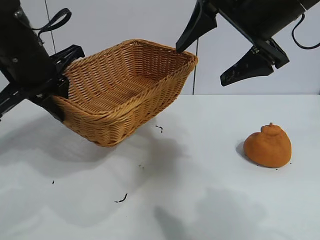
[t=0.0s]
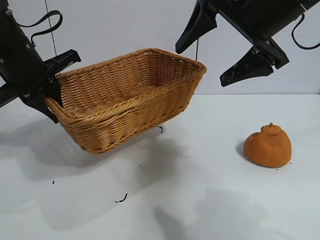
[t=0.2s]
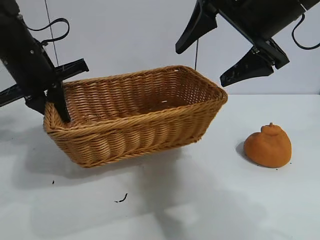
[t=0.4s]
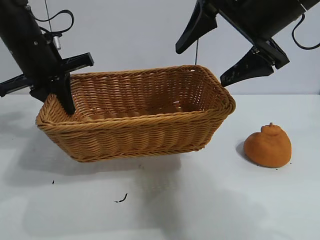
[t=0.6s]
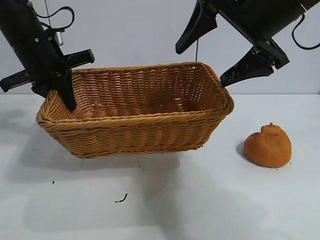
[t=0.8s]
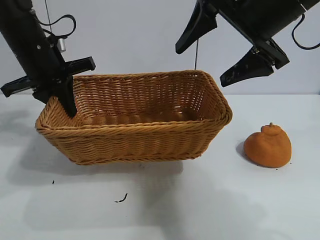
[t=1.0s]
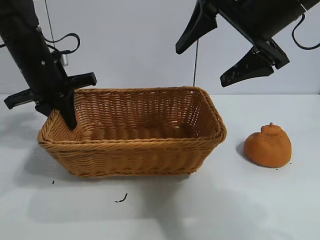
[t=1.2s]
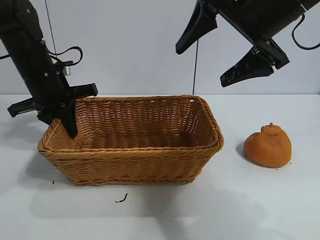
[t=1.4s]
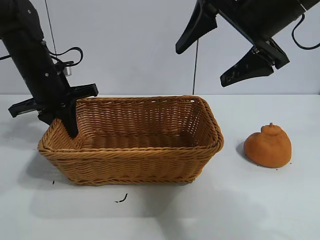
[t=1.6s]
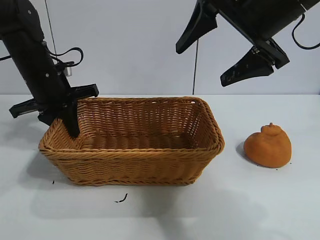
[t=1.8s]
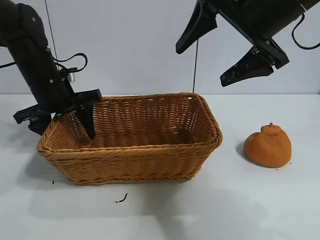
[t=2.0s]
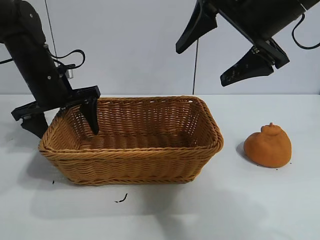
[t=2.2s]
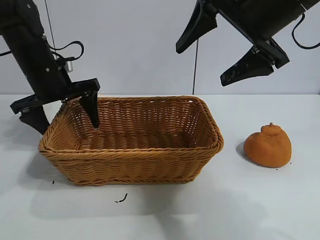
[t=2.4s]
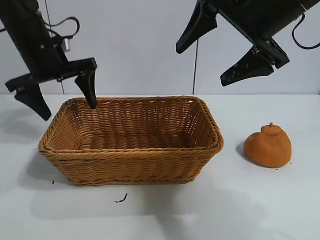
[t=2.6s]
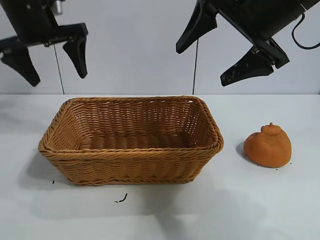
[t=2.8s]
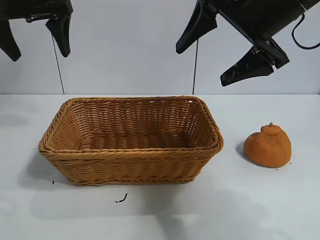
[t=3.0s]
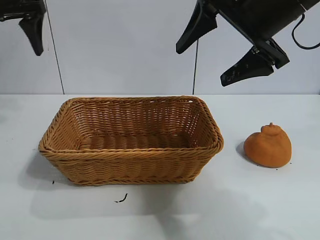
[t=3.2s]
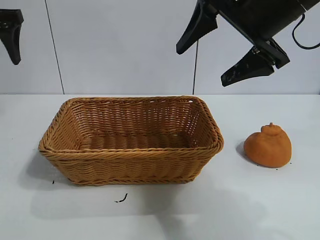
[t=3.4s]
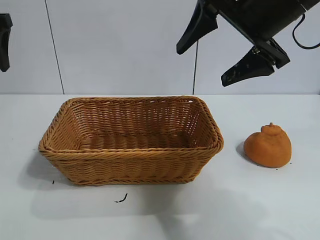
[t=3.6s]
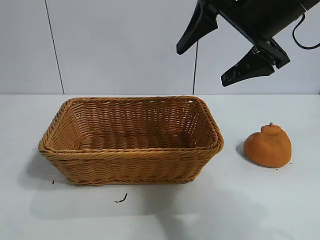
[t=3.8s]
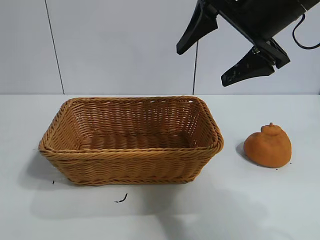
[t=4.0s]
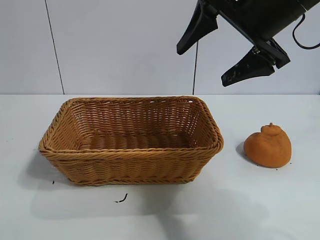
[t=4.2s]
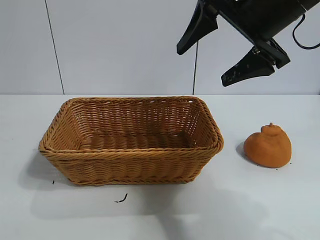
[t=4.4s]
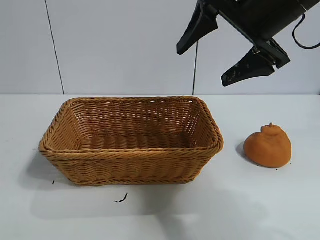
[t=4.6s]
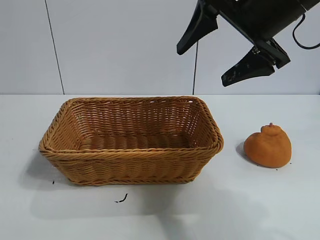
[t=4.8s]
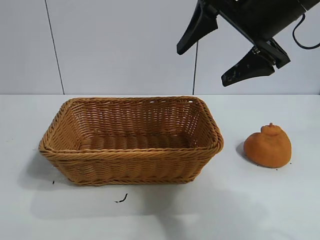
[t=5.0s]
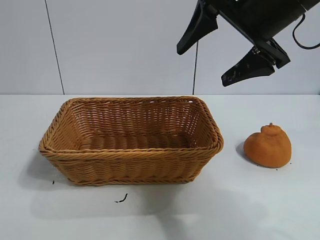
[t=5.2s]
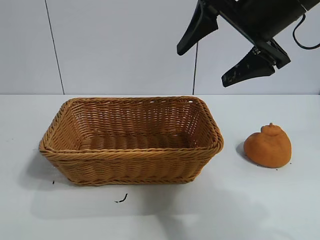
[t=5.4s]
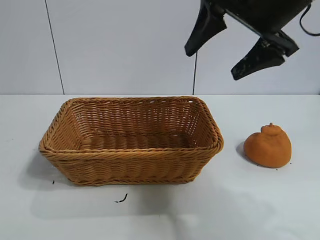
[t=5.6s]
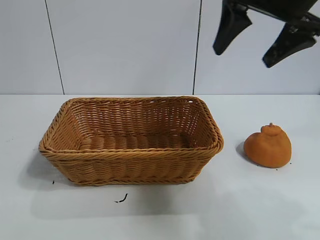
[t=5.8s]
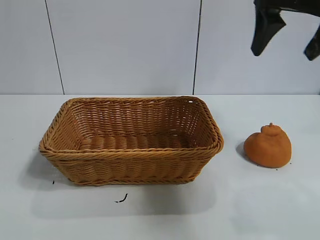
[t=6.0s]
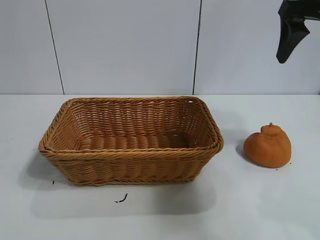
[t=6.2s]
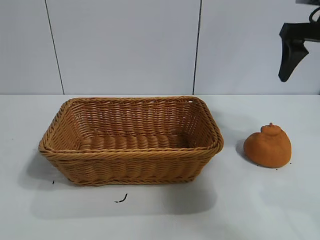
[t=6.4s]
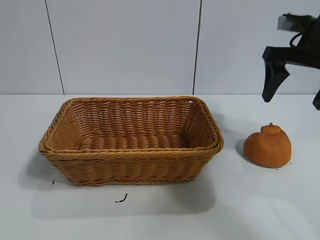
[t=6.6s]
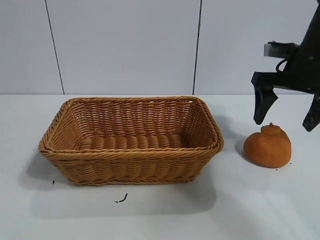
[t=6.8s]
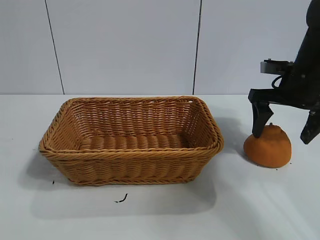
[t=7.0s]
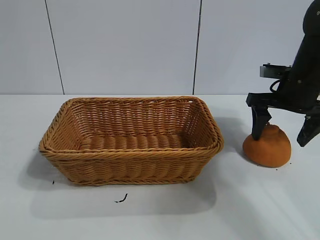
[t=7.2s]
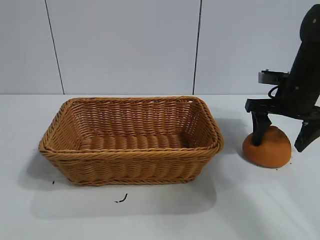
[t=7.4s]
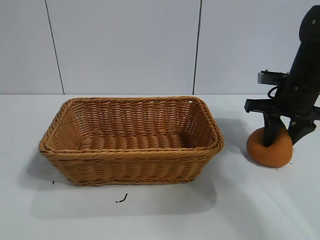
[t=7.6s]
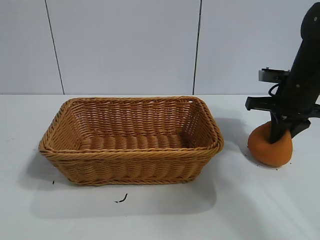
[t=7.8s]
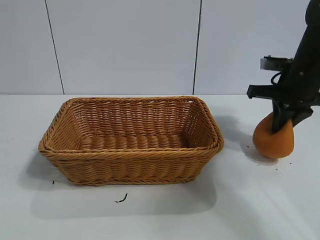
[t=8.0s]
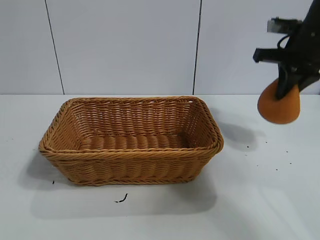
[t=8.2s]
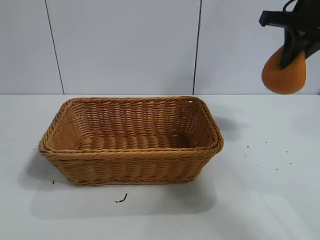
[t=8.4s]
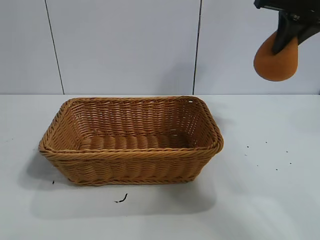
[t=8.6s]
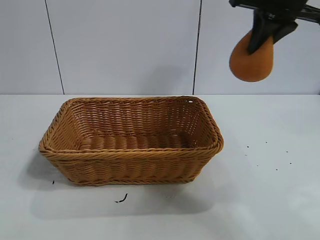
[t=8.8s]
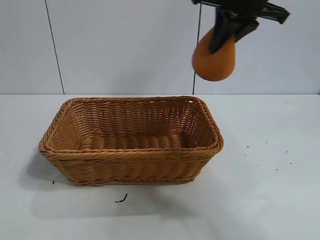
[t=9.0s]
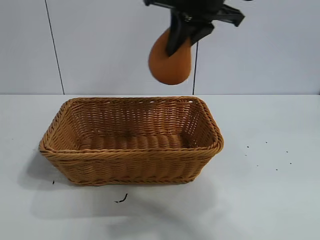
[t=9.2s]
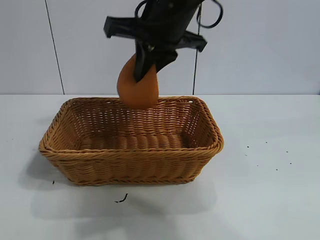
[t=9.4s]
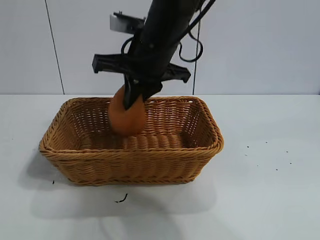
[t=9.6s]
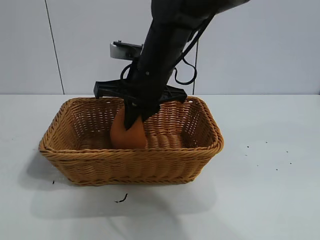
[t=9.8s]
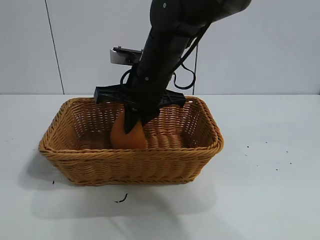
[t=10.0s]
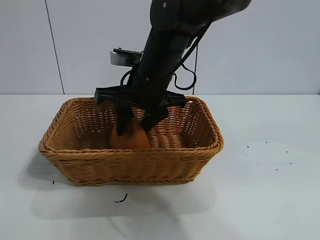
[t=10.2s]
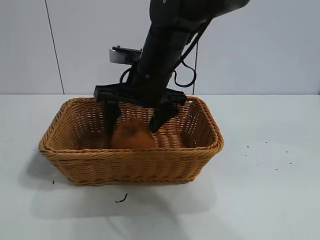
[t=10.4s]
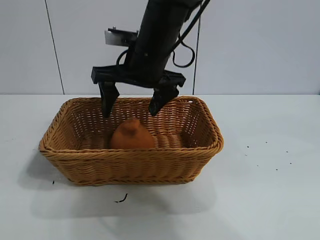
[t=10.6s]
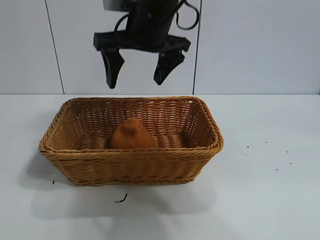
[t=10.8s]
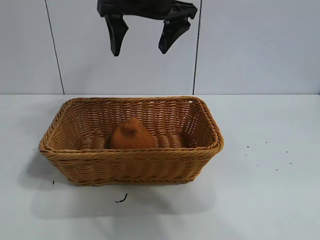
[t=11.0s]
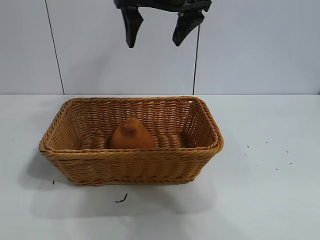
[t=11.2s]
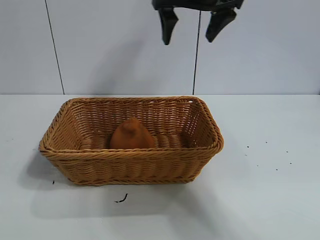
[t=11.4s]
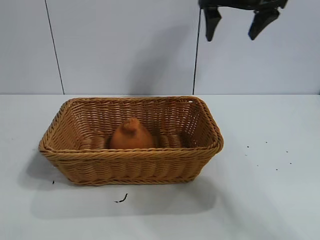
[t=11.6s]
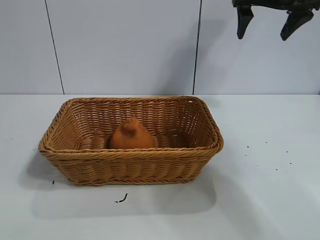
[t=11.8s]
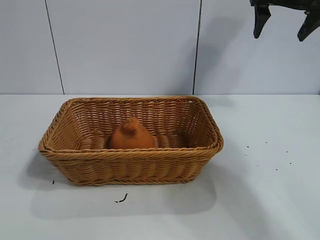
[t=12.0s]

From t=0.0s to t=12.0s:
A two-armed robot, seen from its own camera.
Task of the whole recording: pick up the orange and put it into the basket.
Step, from t=0.0s to t=2.0s: Place the basket in the center of view with left gripper.
Step, from t=2.4s to t=7.8s: Grasp the orange with right gripper.
Step, from t=8.2s to t=10.4s: Place the orange in the basket with right gripper.
